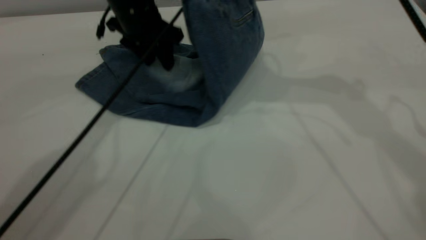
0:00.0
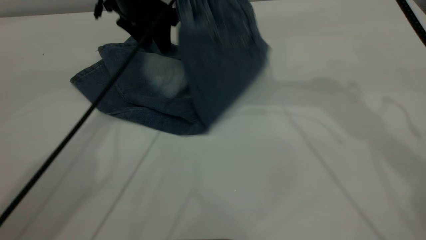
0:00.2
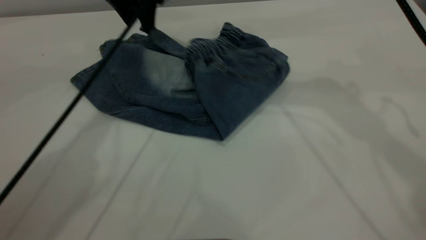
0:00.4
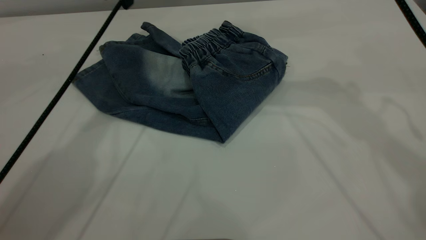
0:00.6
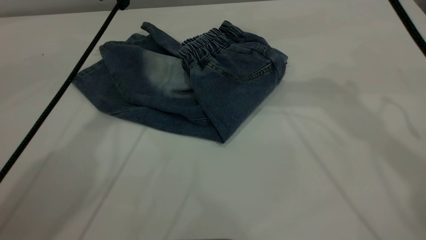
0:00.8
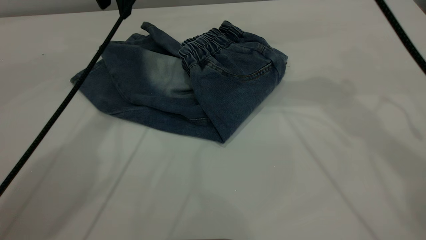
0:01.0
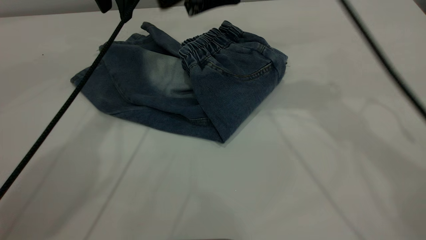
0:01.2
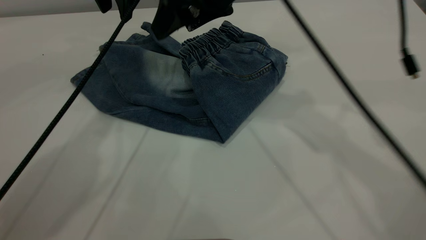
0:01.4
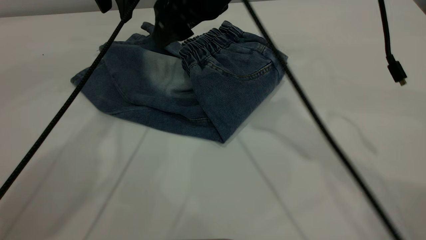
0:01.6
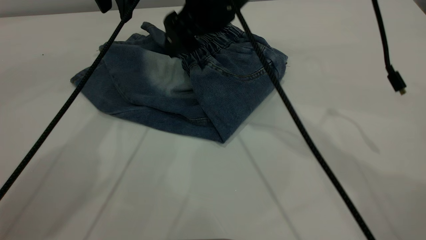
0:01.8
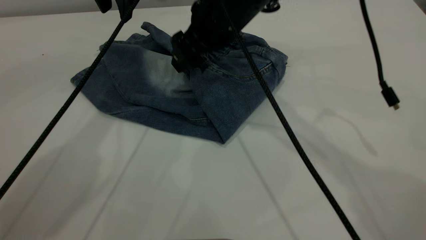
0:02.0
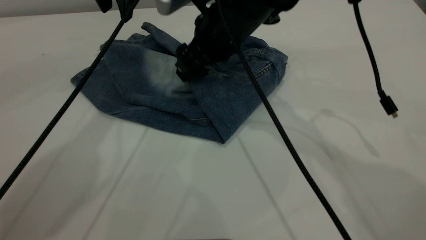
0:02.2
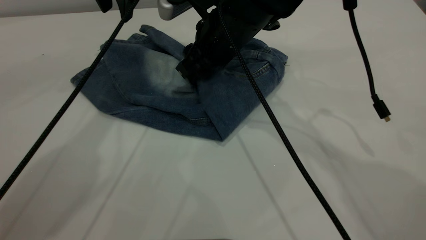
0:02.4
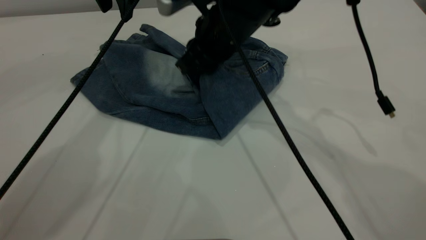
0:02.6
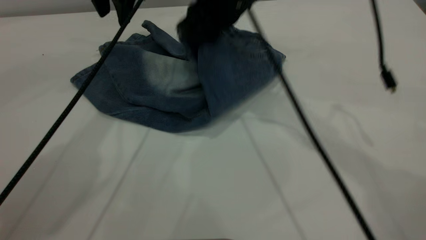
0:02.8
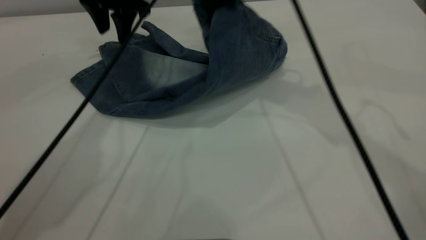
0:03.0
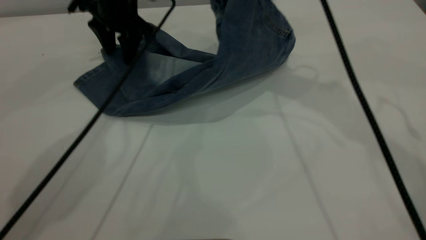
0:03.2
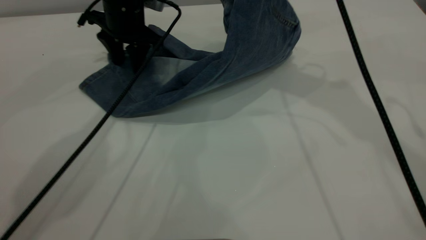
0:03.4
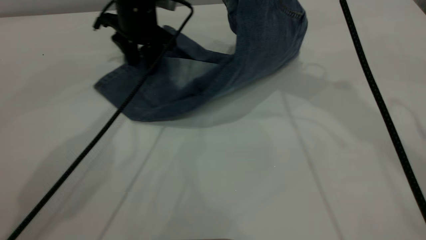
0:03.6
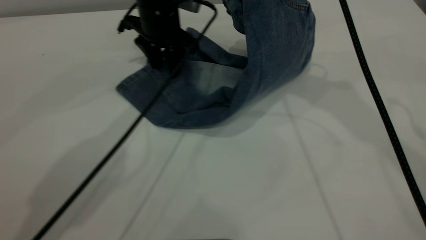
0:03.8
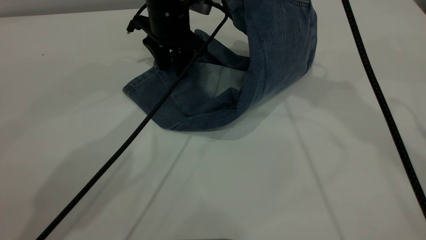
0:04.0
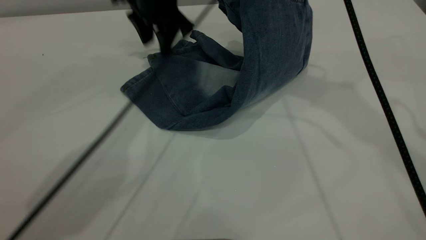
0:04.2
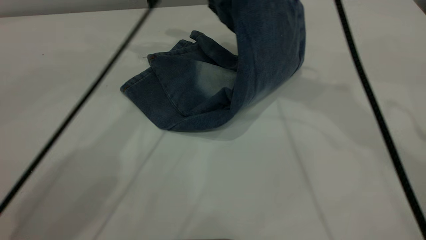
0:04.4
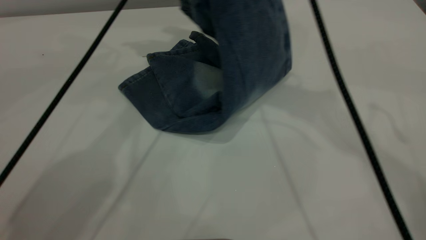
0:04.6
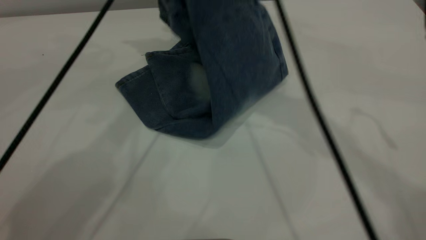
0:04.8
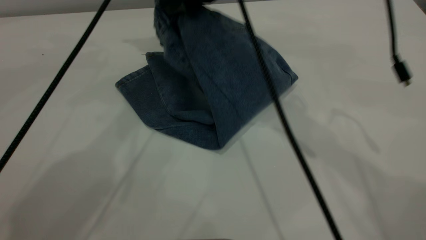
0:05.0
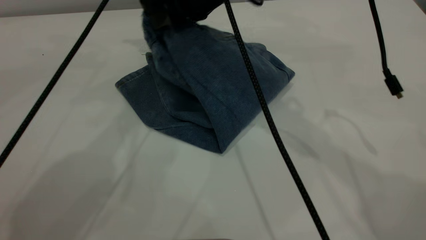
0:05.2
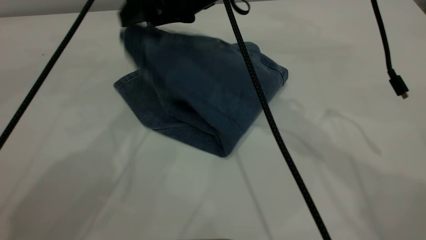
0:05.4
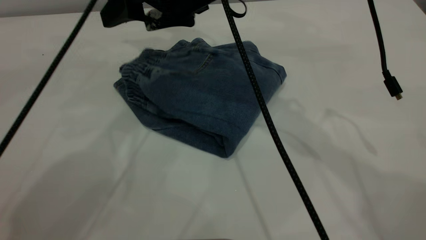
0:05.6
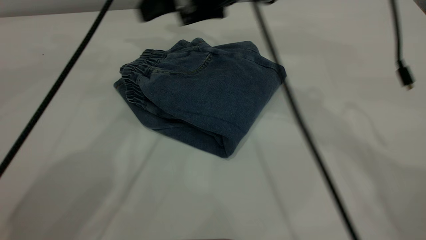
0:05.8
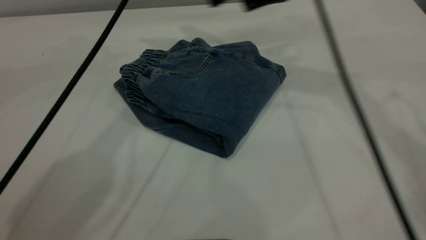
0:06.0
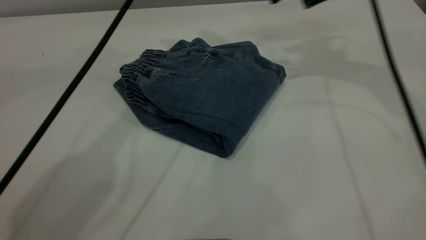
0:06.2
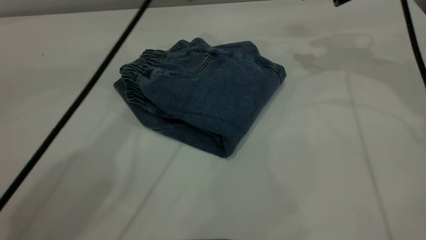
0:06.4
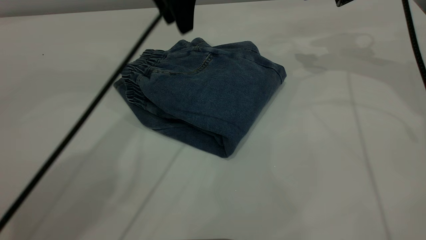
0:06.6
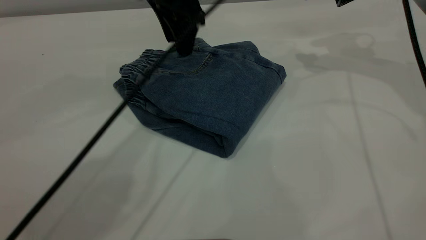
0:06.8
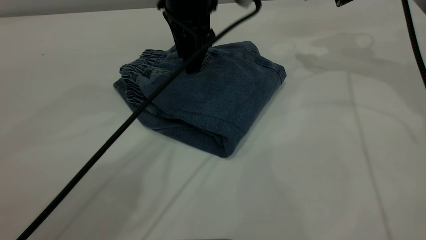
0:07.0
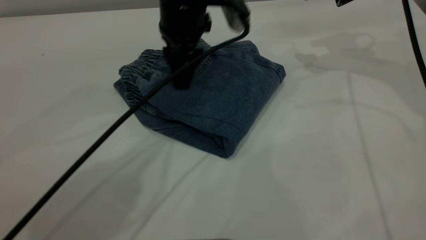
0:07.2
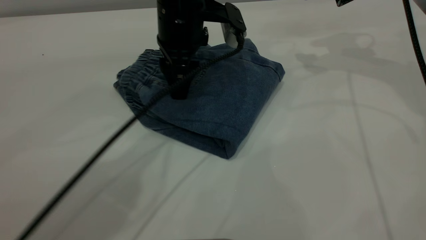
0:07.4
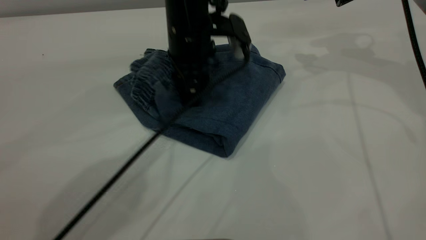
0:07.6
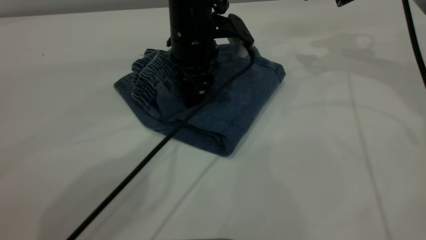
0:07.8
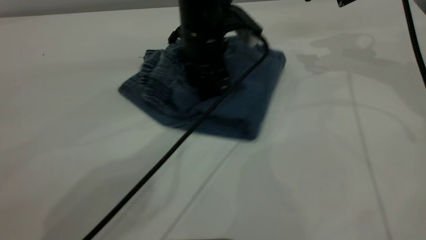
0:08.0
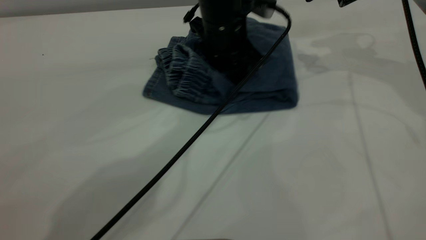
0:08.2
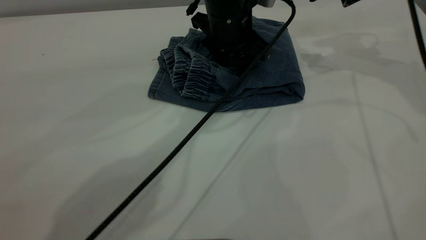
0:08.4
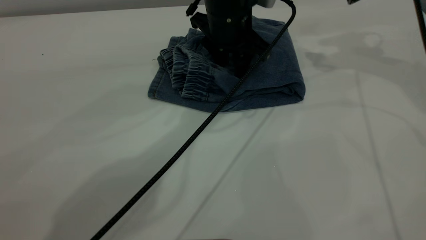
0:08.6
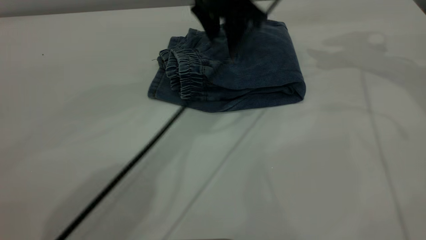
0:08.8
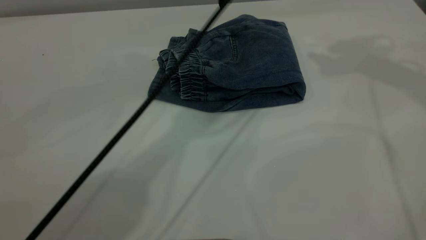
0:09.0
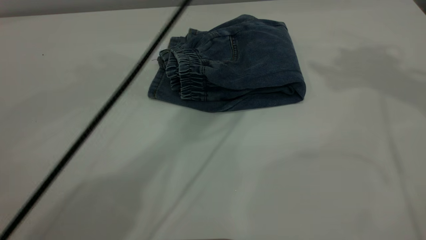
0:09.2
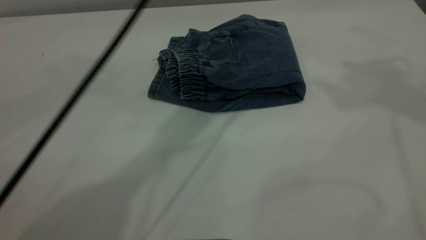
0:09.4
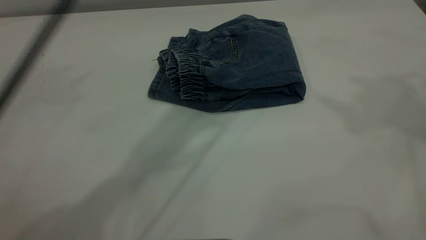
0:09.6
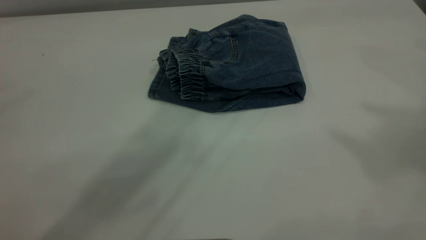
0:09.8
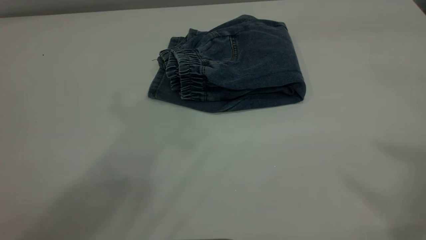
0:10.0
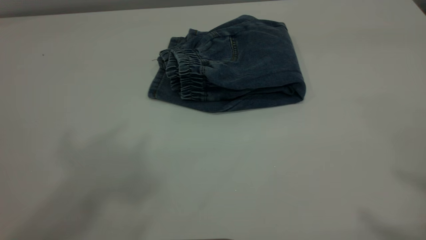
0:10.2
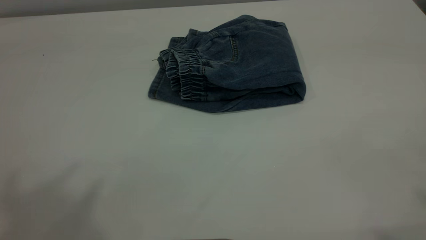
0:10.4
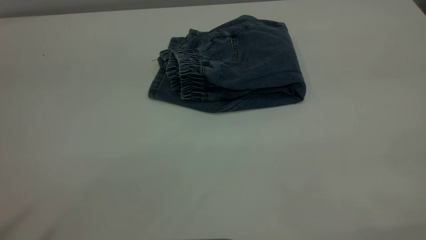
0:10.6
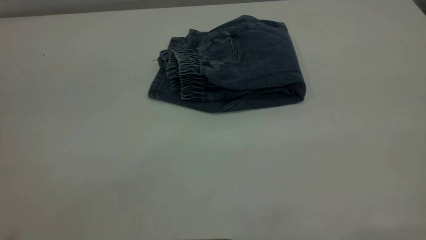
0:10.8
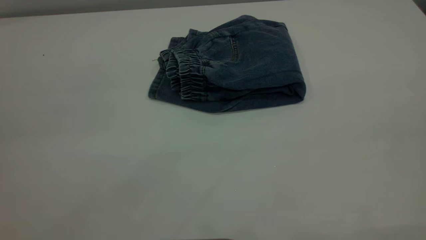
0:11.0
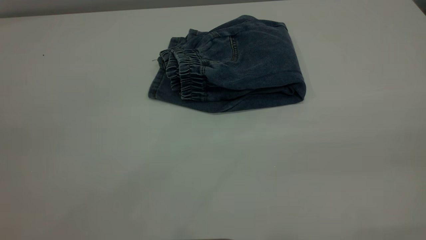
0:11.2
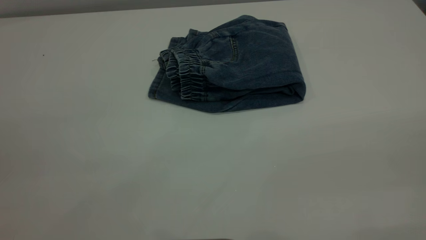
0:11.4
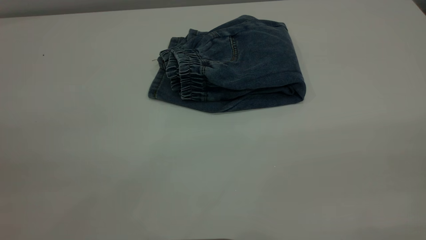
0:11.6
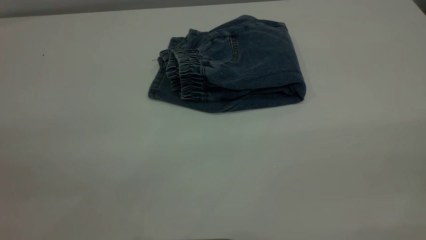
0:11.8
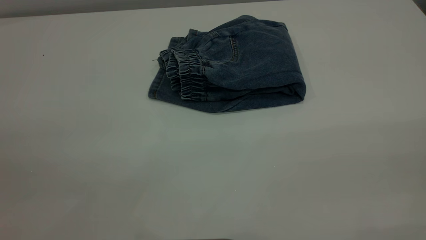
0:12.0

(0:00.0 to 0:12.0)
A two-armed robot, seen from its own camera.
0:00.0 - 0:01.6: The right gripper heads to the left and downward, covering about 10 cm, and opens. The left gripper shifts some 5 cm upward.
0:01.6 - 0:03.0: The right gripper is displaced to the right by roughly 5 cm, travels downward and back again, about 10 cm each way, and closes up.
0:03.0 - 0:04.4: The left gripper travels upward and to the right by about 10 cm.
0:04.4 - 0:06.0: The left gripper goes about 5 cm upward; the right gripper shifts some 5 cm downward, moves about 10 cm to the left and comes back, and opens.
0:06.0 - 0:07.6: The left gripper is displaced downward and backward by approximately 20 cm, while the right gripper heads to the right, covering about 10 cm.
0:07.6 - 0:09.0: The two grippers go about 15 cm upward.
0:09.0 - 0:10.4: The left gripper moves backward, upward and to the left, about 50 cm.

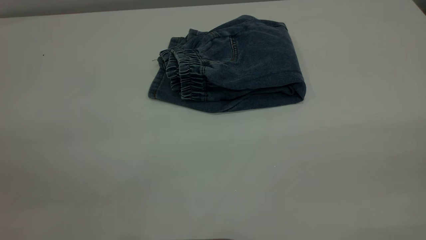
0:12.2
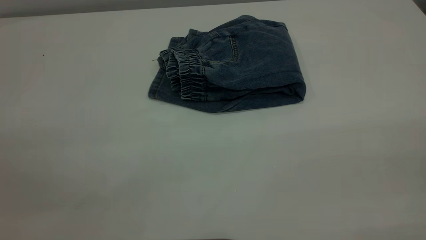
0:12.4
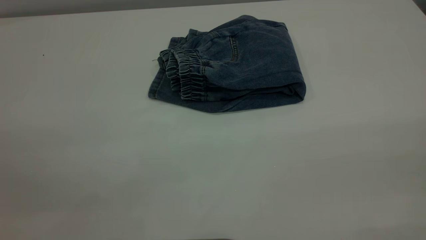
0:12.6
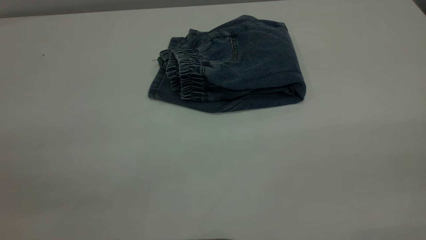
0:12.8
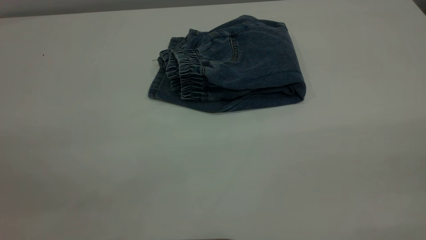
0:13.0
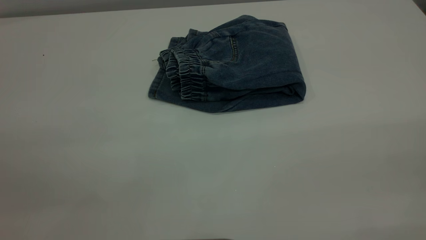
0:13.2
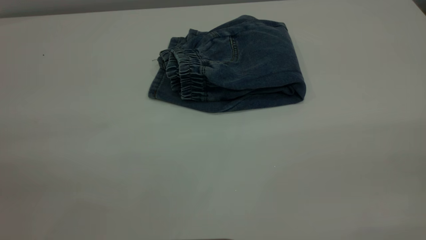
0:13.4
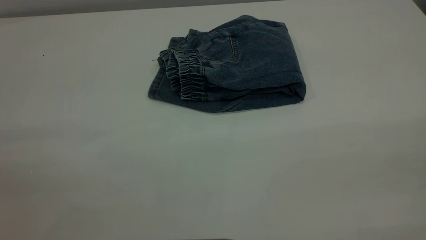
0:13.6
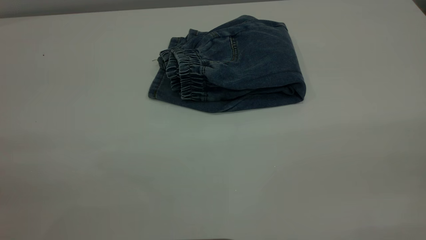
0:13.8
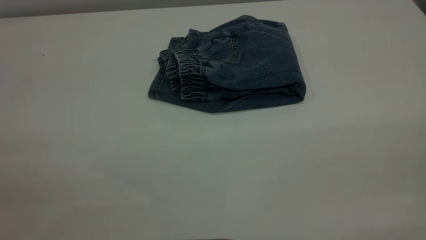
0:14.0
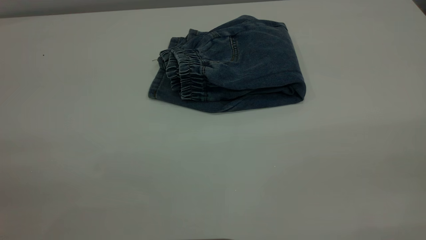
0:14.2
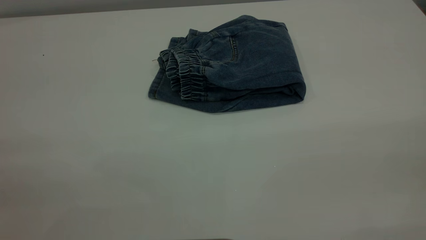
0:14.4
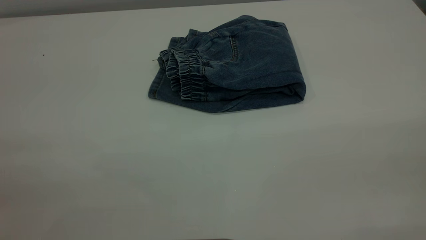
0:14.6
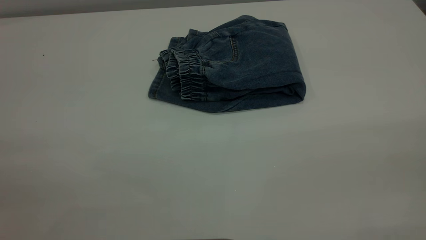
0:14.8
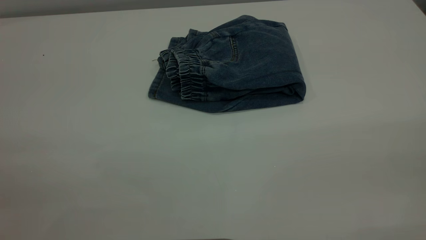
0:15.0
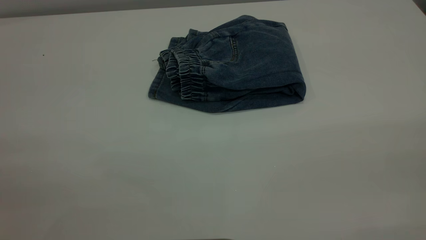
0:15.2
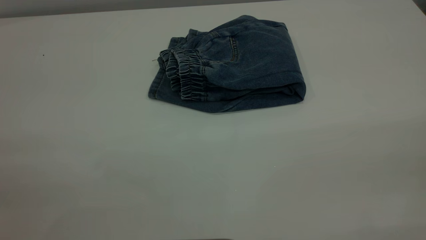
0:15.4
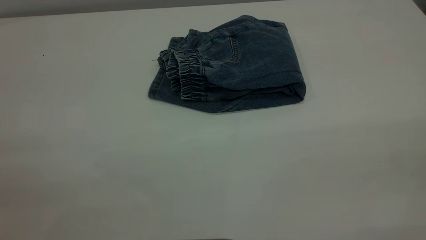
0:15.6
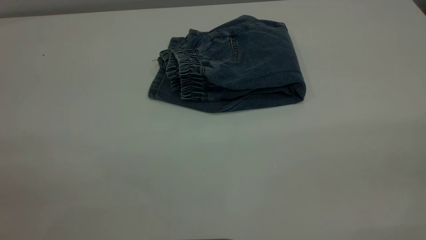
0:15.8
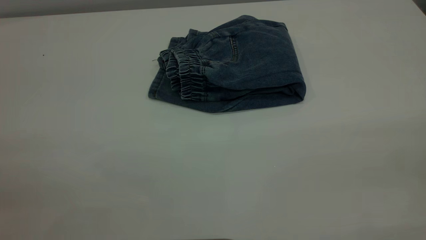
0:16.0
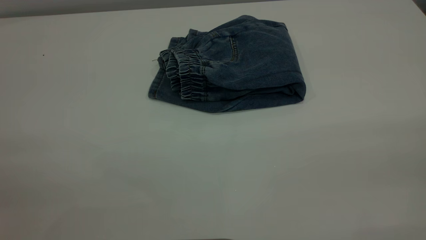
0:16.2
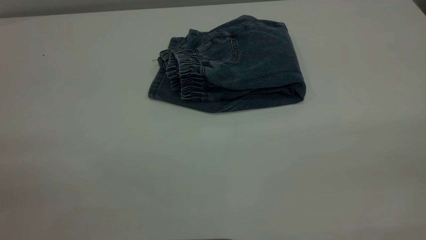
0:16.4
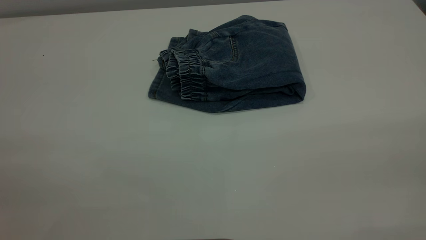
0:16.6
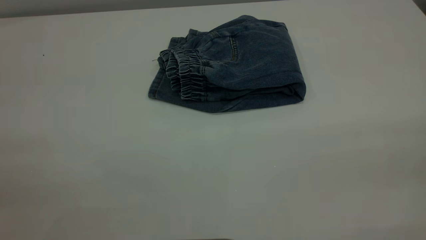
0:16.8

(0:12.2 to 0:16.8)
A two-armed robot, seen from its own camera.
0:13.8 - 0:15.2: The two grippers keep their place.
